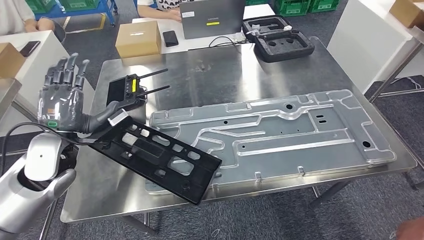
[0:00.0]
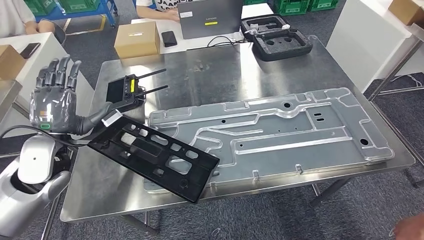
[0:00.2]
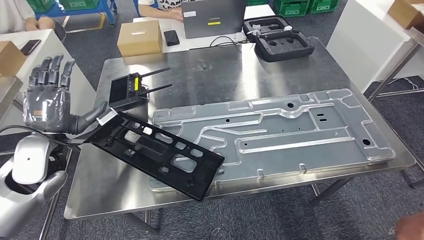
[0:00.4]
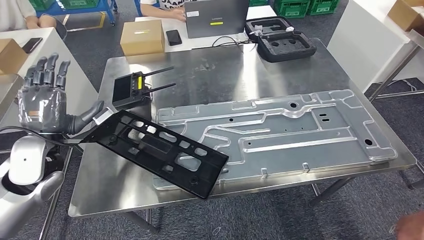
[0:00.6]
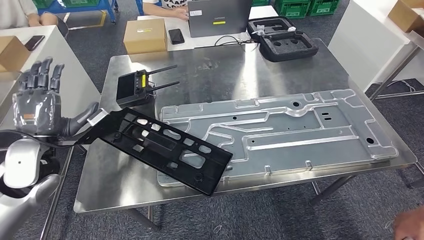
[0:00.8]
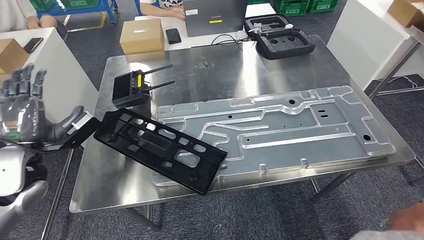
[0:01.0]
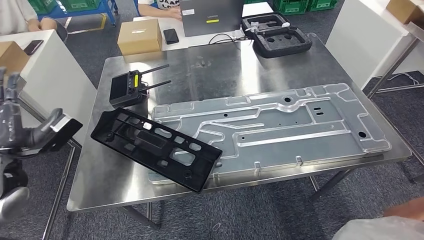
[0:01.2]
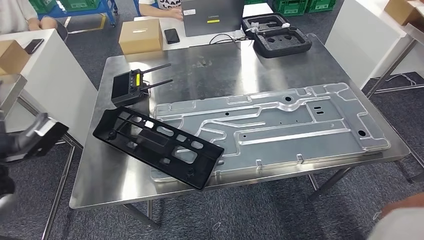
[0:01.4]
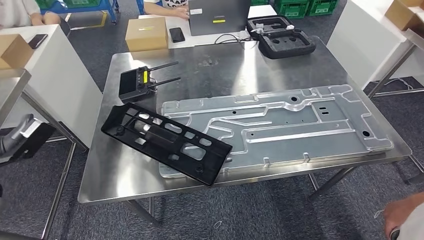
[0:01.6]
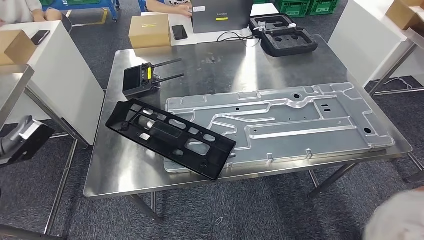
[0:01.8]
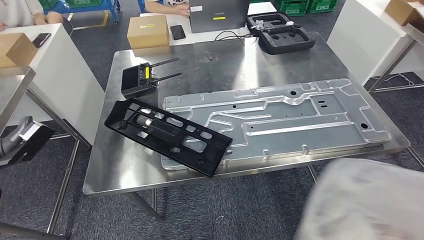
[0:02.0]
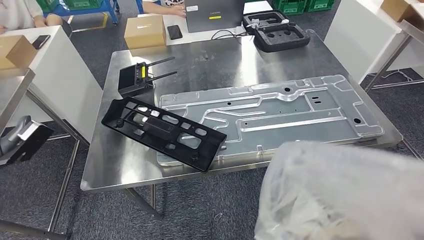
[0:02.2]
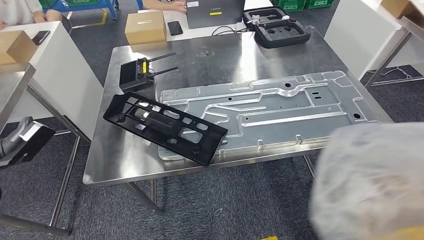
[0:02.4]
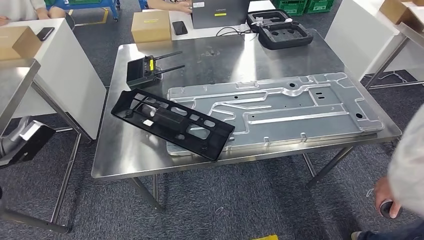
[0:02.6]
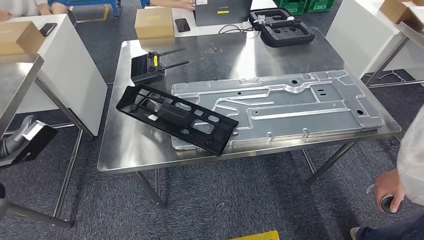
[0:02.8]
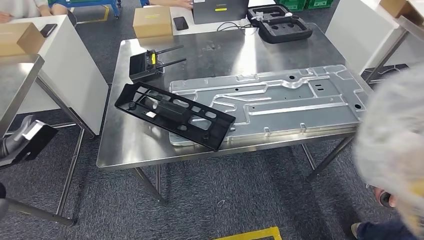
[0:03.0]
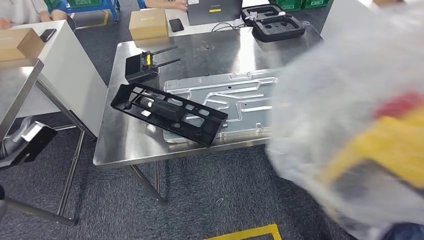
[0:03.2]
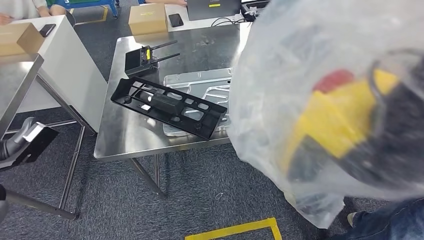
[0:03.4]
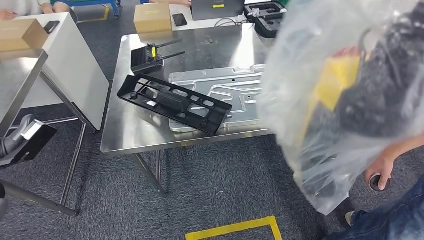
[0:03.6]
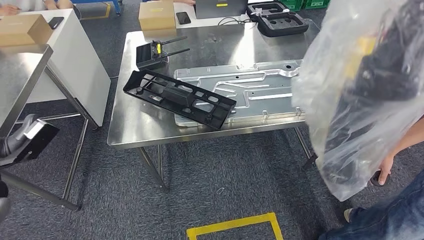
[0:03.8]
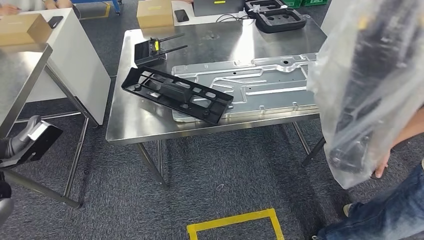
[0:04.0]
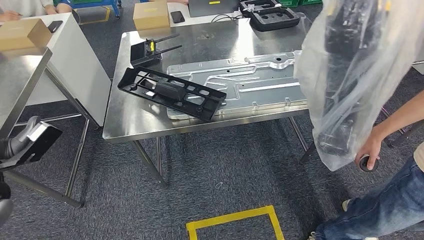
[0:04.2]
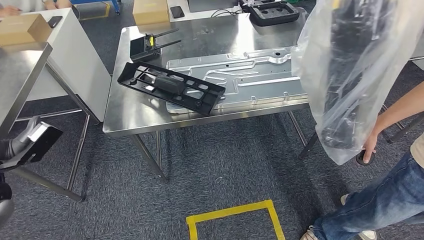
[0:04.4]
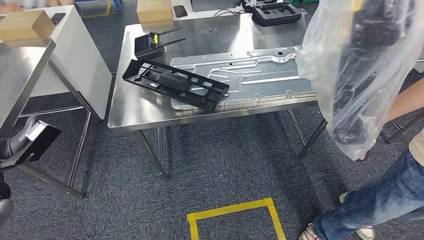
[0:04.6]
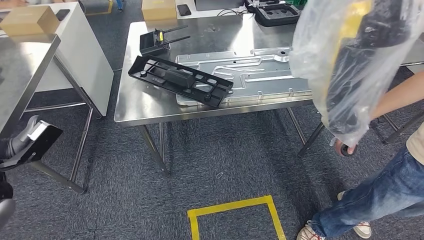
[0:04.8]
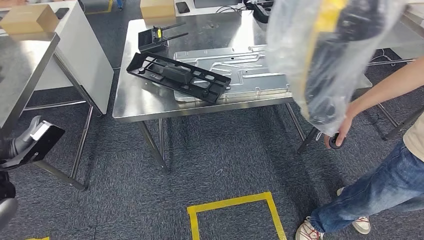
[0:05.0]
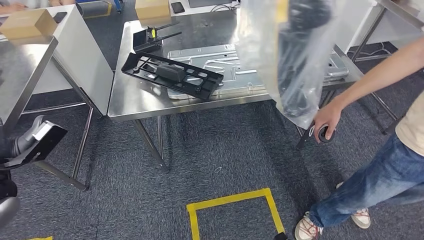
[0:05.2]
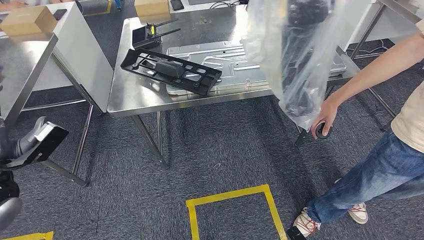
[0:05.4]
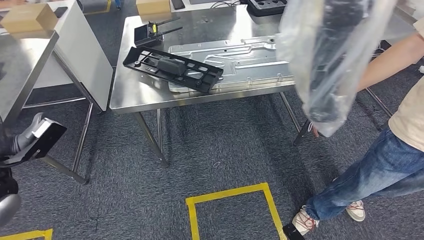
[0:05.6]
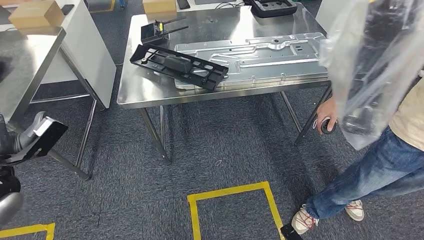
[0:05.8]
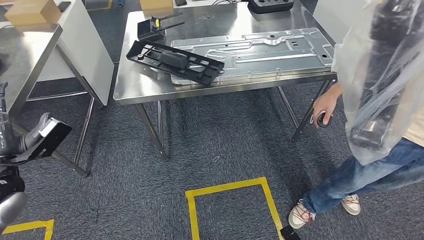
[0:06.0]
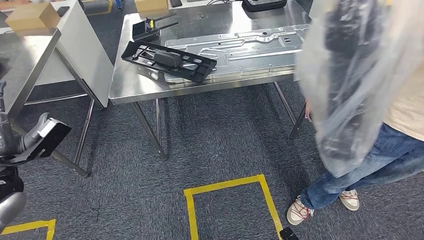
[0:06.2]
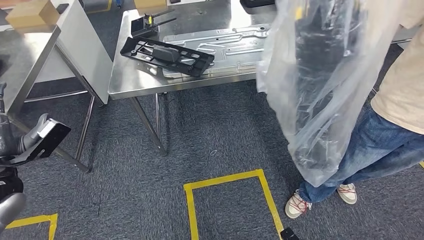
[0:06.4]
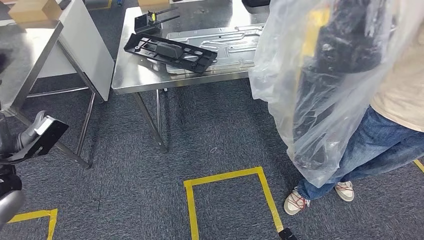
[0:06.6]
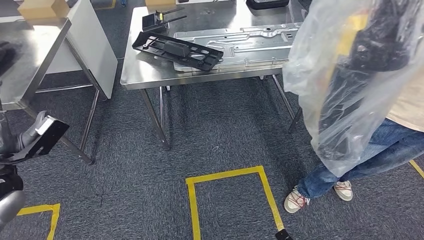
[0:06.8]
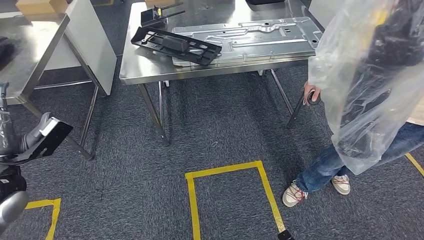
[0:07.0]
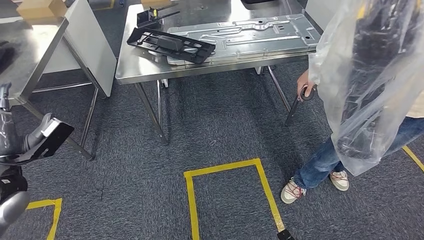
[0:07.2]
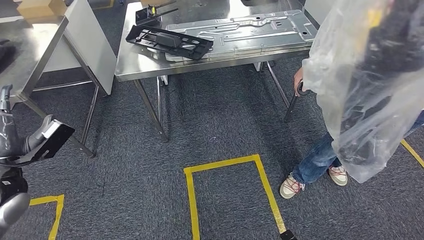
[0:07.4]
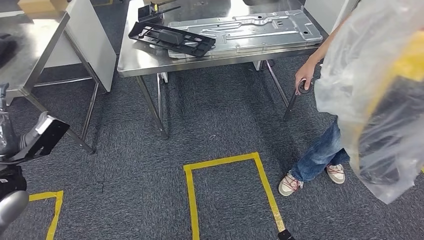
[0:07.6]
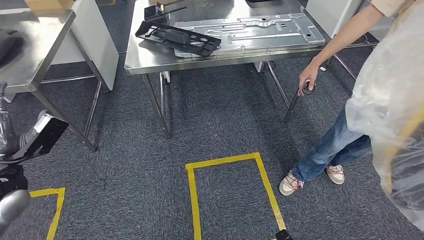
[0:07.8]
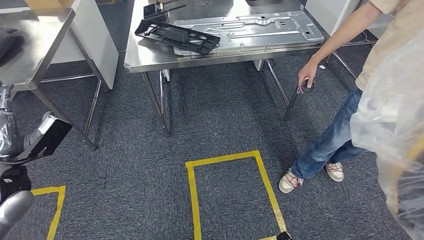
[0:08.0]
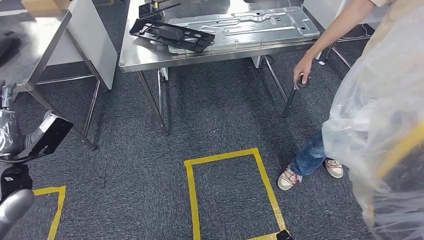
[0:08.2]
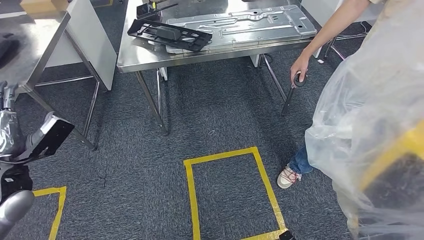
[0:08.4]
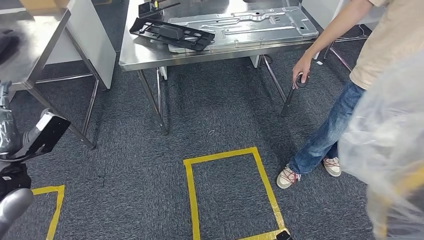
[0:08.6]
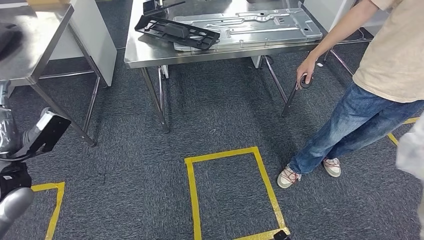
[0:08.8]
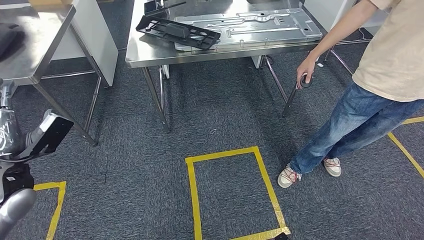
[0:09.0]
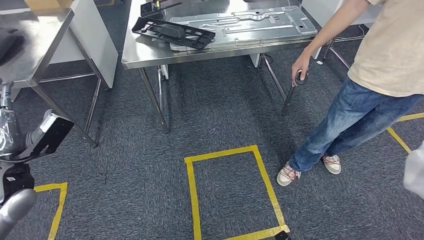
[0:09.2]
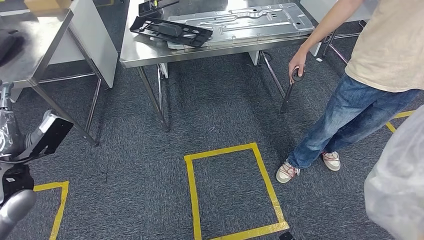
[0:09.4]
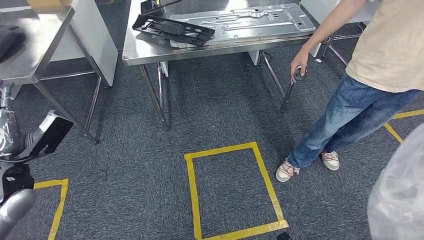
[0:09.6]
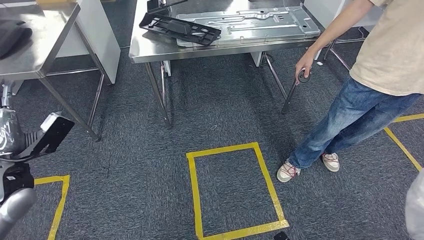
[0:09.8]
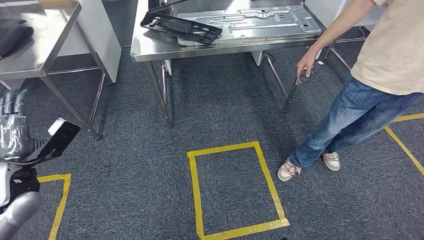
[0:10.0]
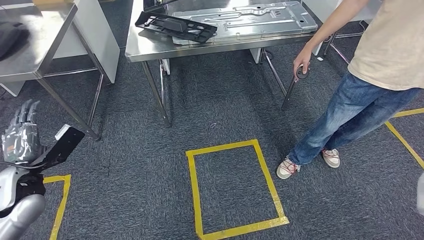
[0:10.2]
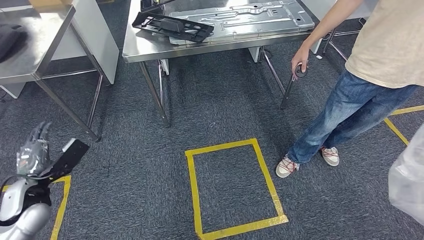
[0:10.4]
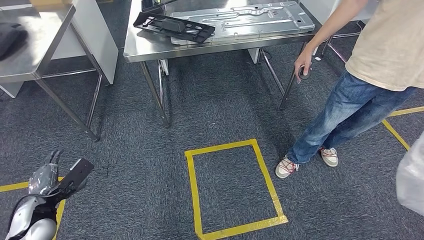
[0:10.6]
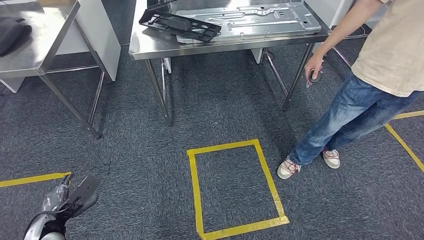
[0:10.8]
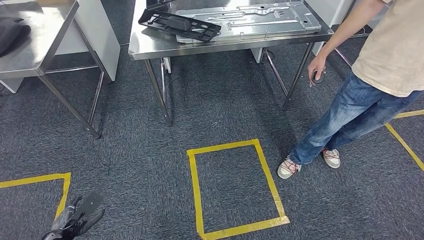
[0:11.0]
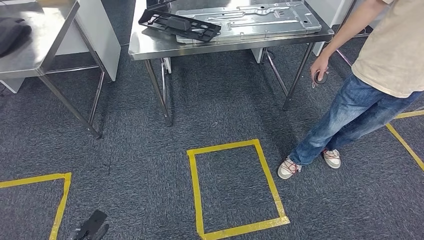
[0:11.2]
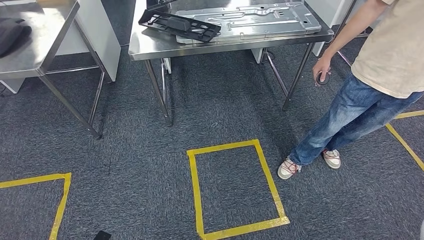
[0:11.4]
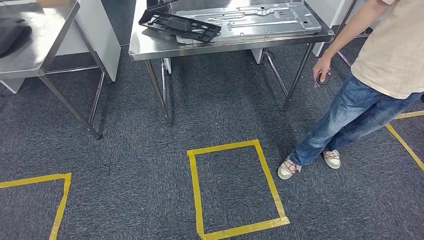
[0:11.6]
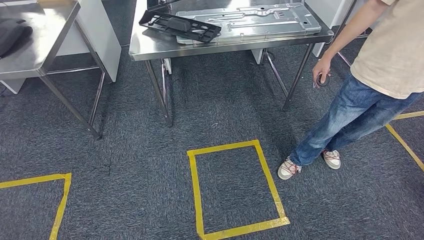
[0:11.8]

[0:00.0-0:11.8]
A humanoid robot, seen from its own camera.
Step, 0:00.0 to 0:02.0: Insert the large material into the corresponding slot on the workbench.
Step, 0:03.8 to 0:11.8: Return to the initial position at the shelf.

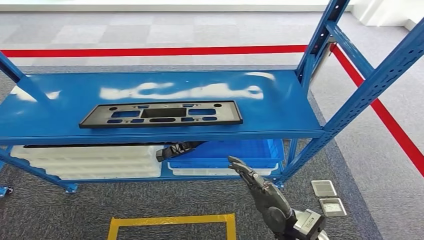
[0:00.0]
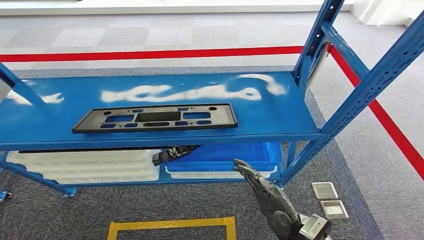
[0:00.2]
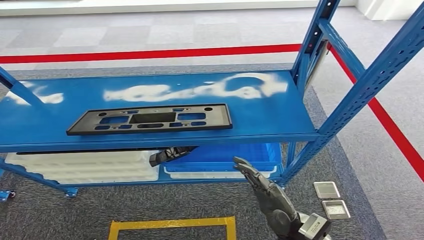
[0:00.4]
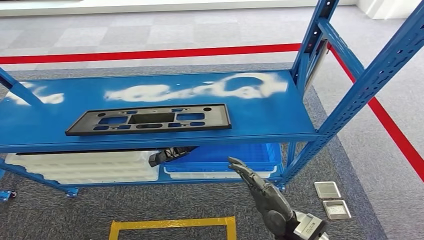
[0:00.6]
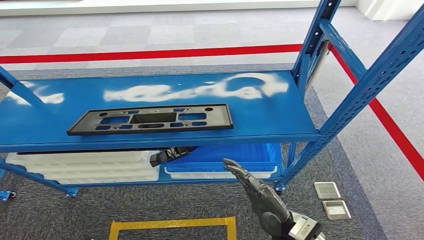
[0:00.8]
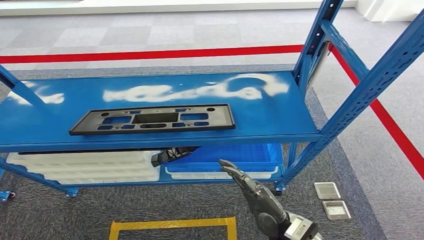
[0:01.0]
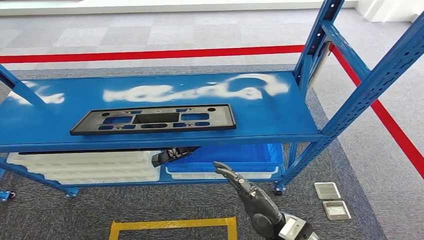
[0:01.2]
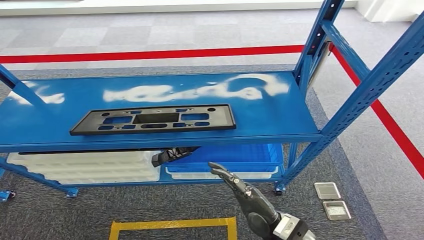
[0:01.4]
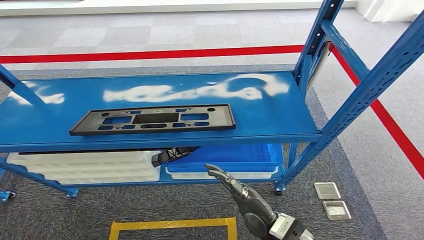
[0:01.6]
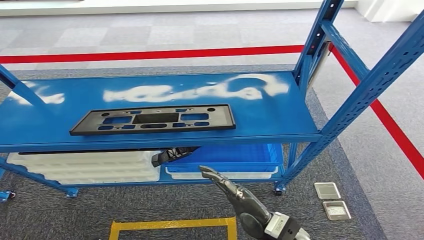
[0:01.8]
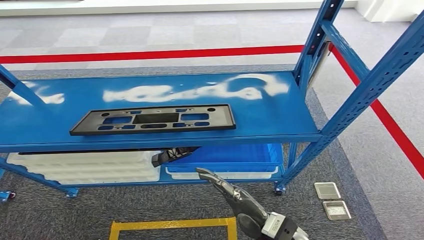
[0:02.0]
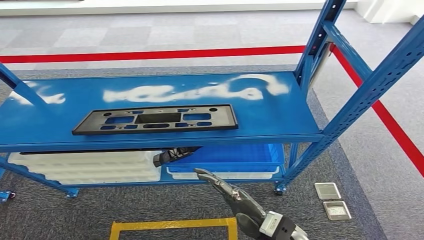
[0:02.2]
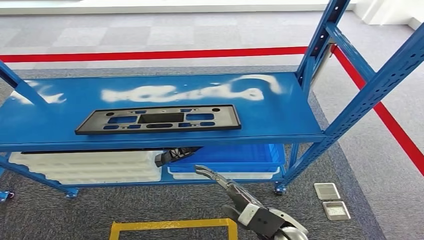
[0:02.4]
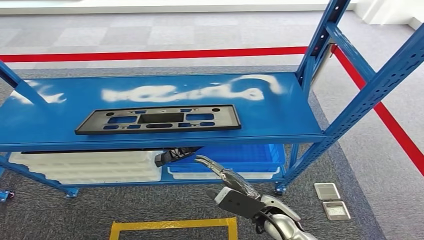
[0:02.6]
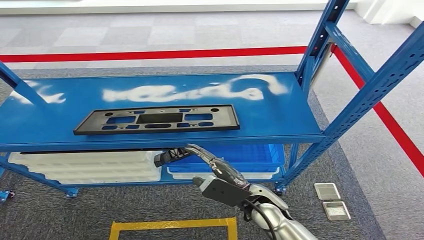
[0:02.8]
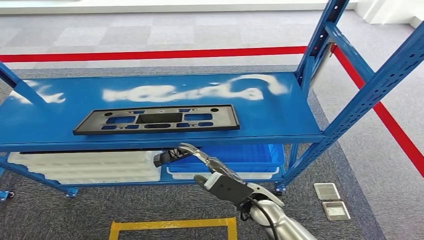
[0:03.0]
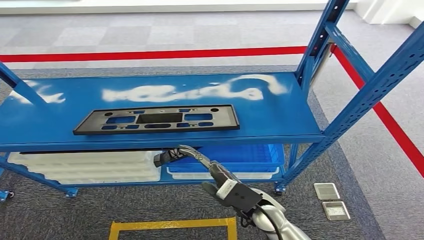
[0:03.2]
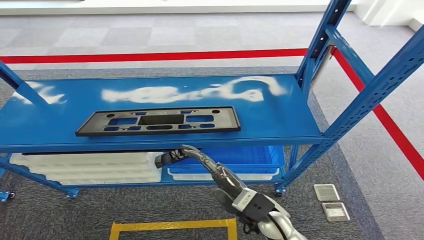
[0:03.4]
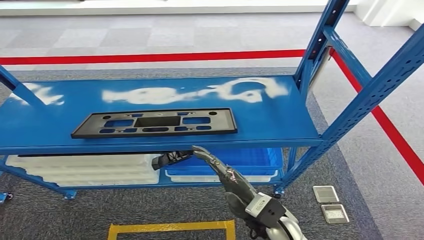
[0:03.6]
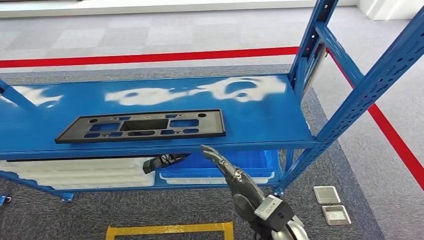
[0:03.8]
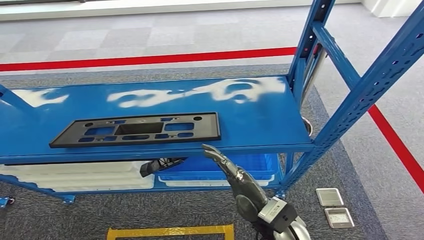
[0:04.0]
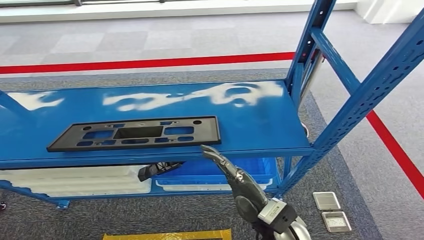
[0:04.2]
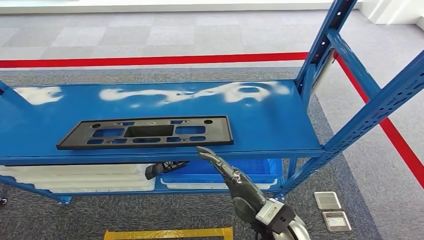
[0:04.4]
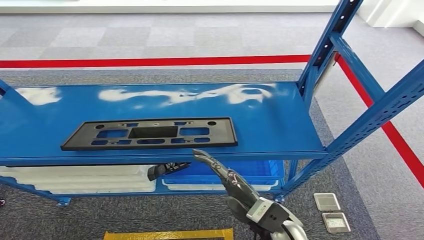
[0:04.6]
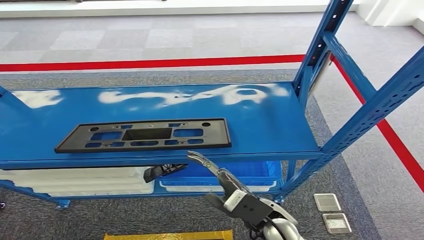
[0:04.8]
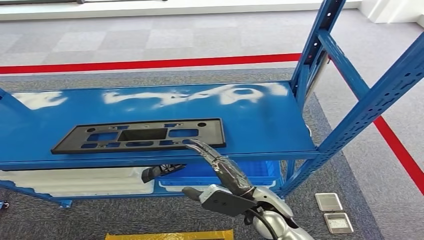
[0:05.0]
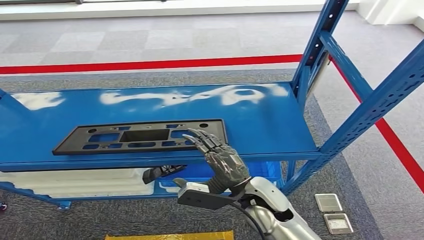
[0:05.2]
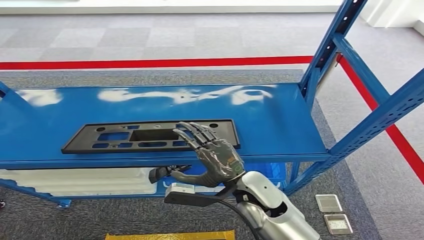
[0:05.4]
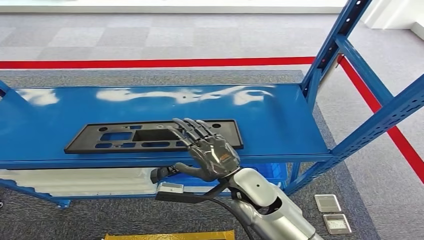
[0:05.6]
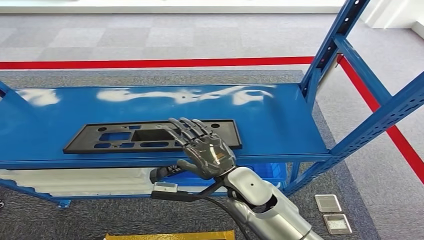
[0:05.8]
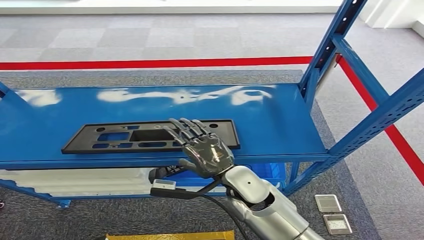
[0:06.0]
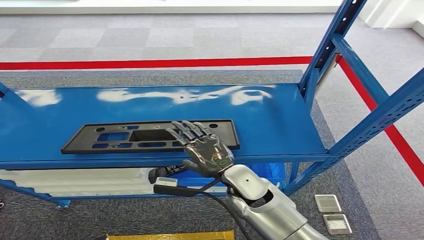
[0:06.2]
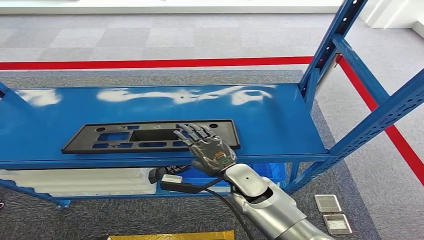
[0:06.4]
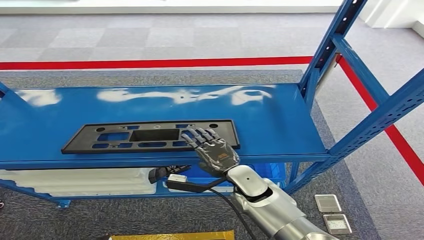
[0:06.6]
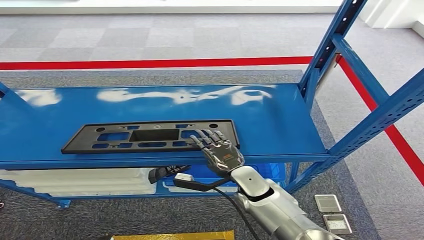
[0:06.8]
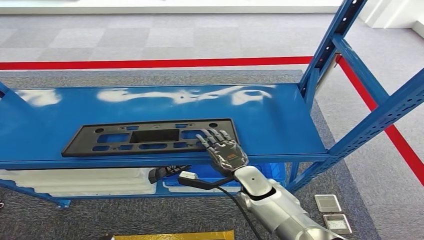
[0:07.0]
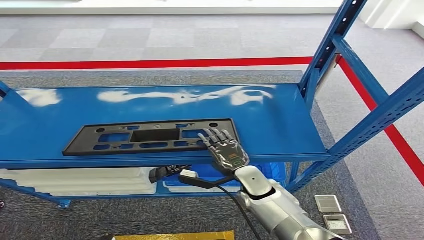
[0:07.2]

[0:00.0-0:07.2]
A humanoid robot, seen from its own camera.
0:01.4 to 0:02.8: The right hand goes roughly 5 cm forward.
0:05.8 to 0:07.2: The right hand travels downward by roughly 10 cm.
